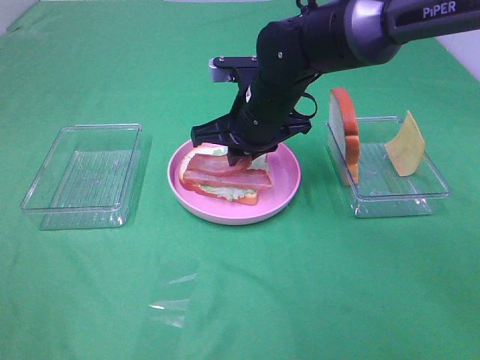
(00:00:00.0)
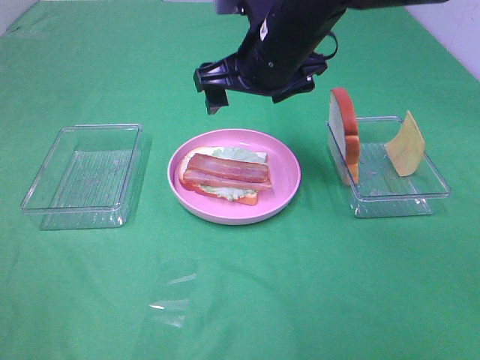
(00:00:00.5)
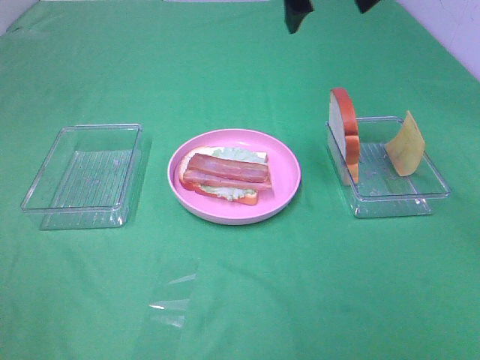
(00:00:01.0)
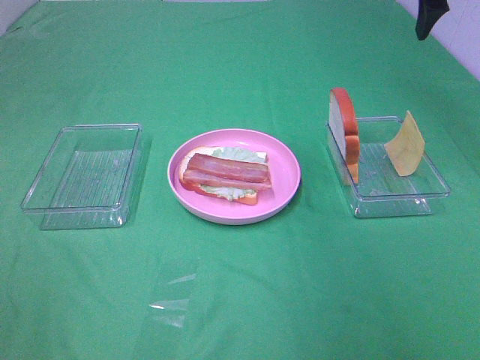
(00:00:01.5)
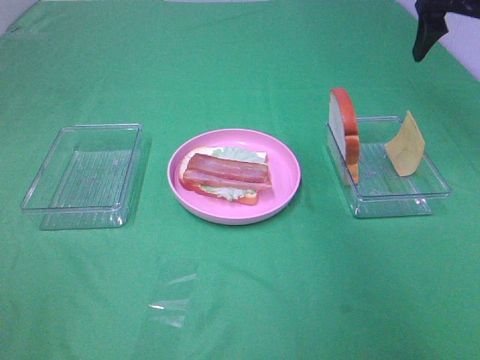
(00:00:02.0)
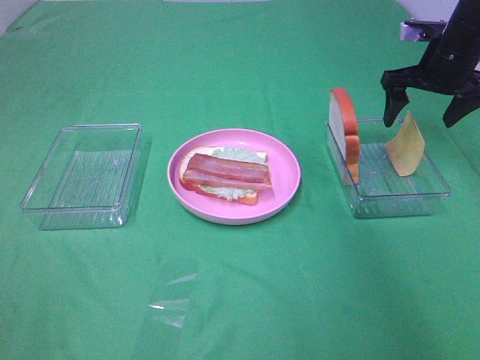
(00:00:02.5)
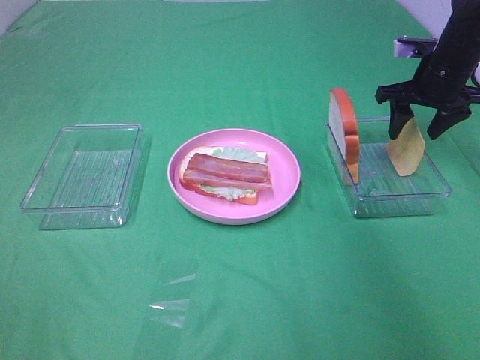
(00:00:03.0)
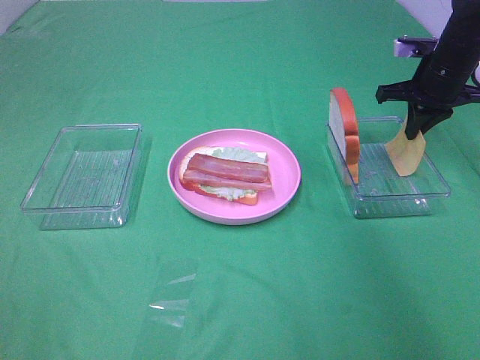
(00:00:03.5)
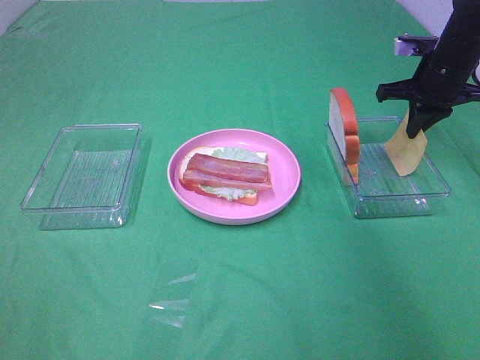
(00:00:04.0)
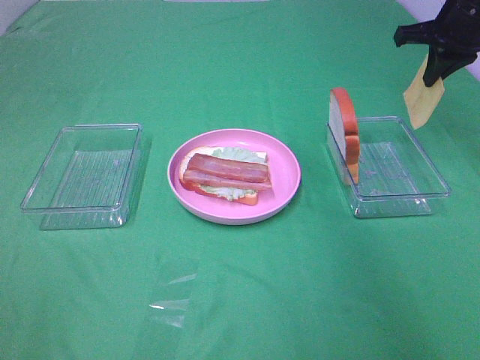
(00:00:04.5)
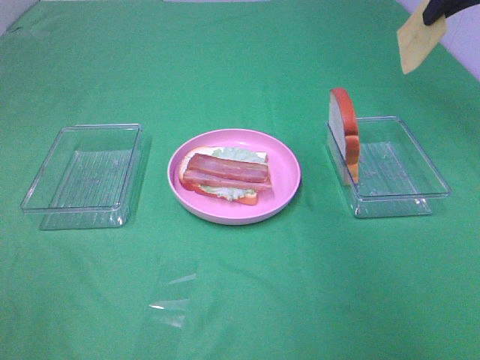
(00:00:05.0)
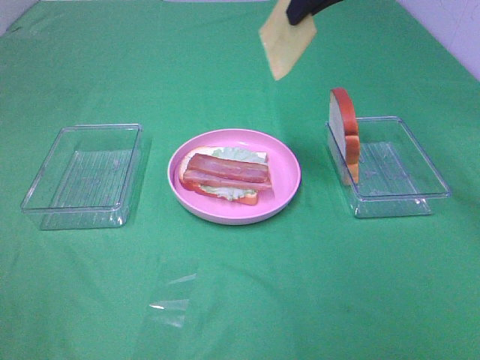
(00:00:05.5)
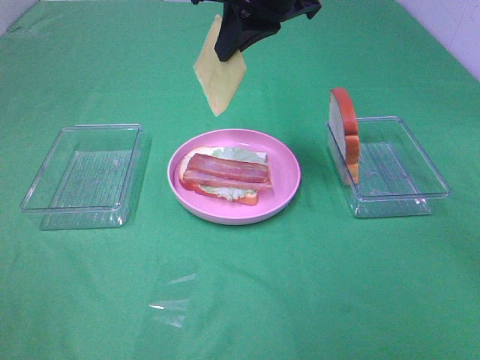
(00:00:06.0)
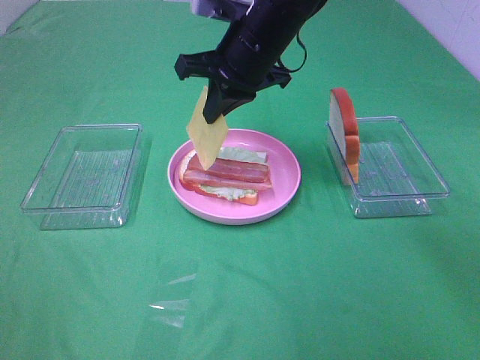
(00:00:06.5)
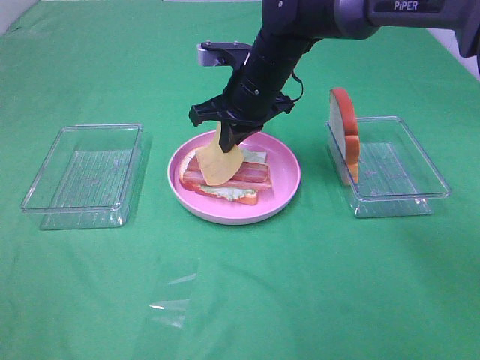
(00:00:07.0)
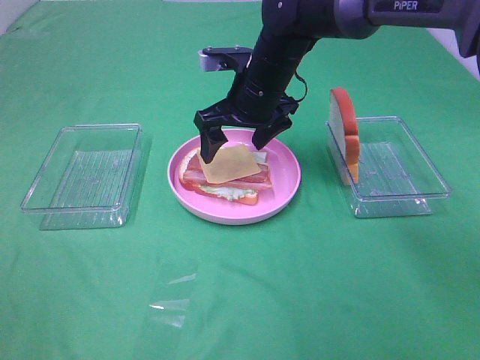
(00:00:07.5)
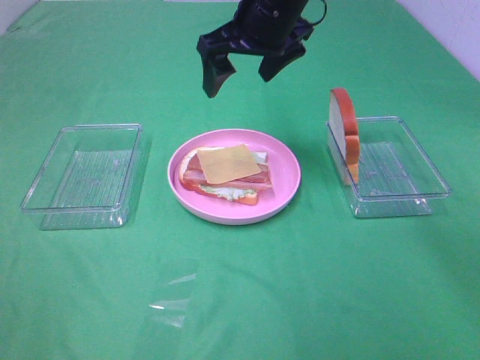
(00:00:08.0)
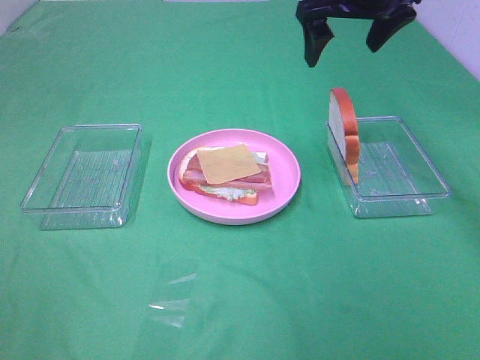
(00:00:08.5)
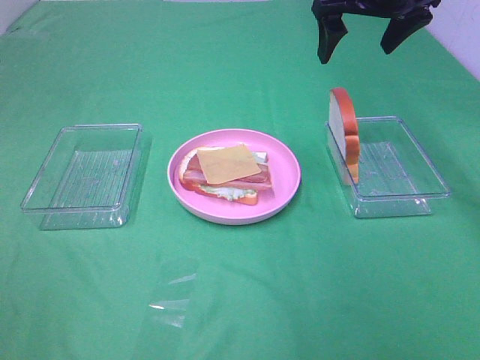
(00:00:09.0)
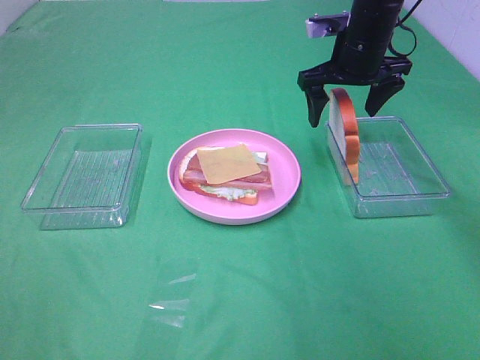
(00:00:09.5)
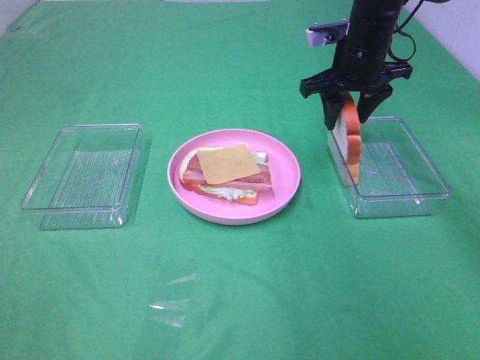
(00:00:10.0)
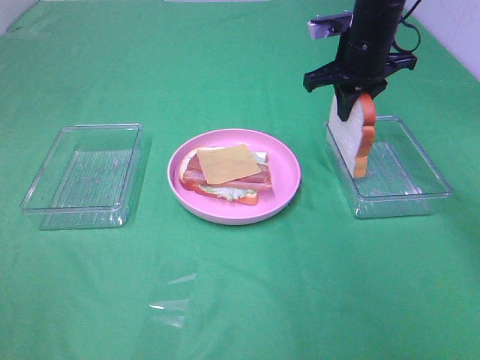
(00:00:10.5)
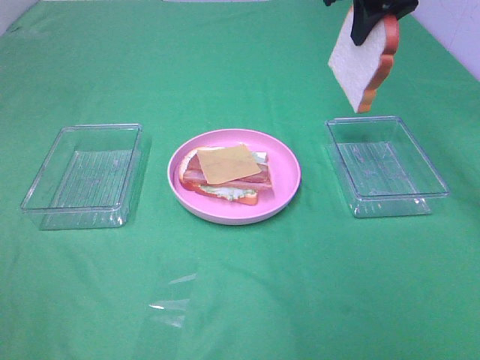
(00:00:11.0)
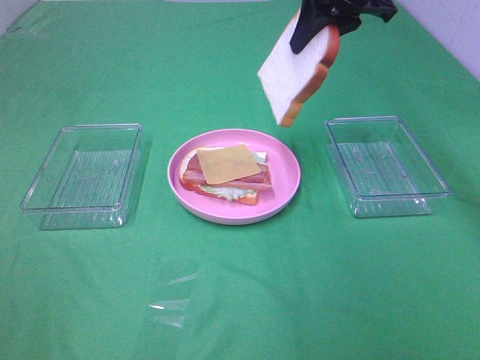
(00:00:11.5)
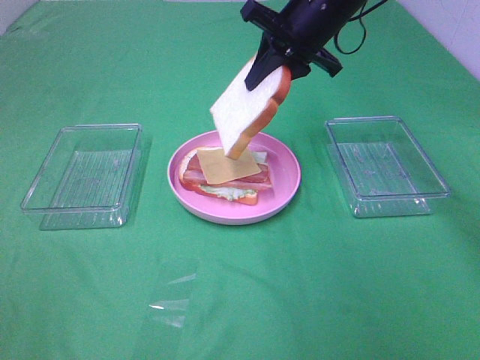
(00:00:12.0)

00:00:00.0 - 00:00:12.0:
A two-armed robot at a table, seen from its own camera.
Task of the whole recording: Make sandwiches.
Step, 00:00:00.5 - 00:00:04.0: Right hand:grab the cheese slice.
Step, 00:00:04.5 - 00:00:07.5: Right hand:place the cheese slice on top of the bacon.
Step, 00:00:08.0 - 00:00:10.0: Right hand:grab the bread slice.
00:00:00.0 - 00:00:02.0: The right gripper moves to the right and upward, approximately 30 cm, and opens.
00:00:02.0 - 00:00:04.0: The right gripper shifts roughly 10 cm downward, and closes its fingers.
00:00:04.0 - 00:00:06.0: The right gripper goes approximately 30 cm to the left and upward.
00:00:06.0 - 00:00:08.0: The right gripper reaches some 15 cm downward, then returns, and opens its fingers.
00:00:08.0 - 00:00:10.0: The right gripper moves to the right, downward and forward, about 15 cm, and closes its fingers.
00:00:10.0 - 00:00:12.0: The right gripper moves to the left and upward, roughly 10 cm.

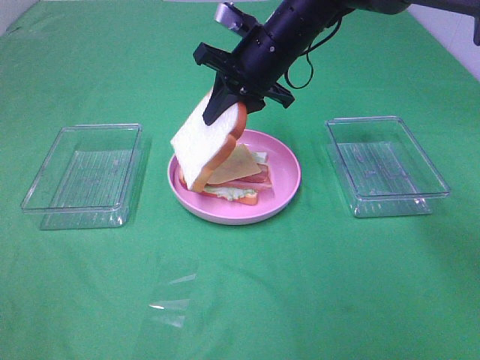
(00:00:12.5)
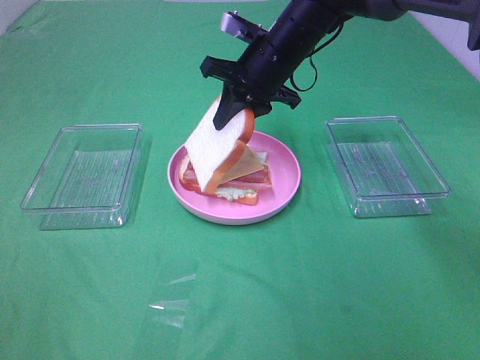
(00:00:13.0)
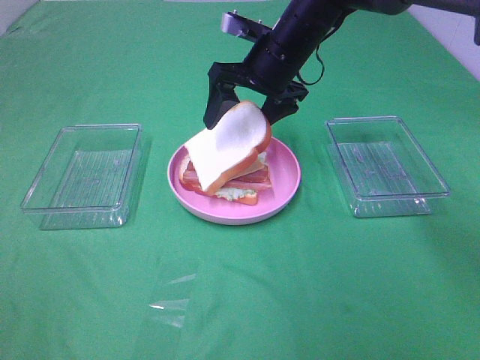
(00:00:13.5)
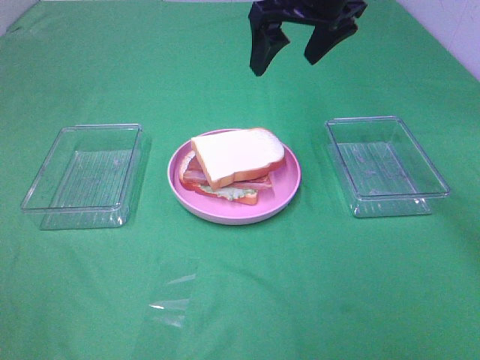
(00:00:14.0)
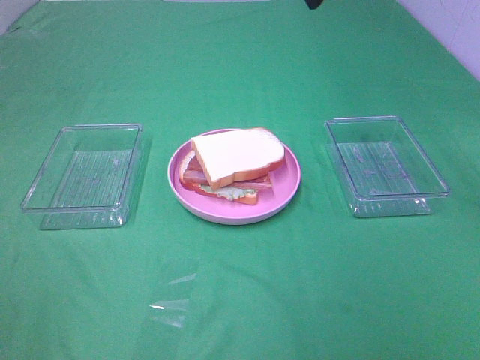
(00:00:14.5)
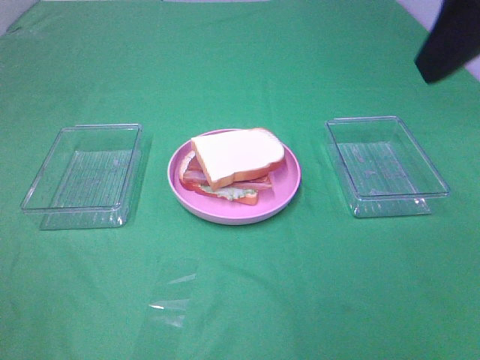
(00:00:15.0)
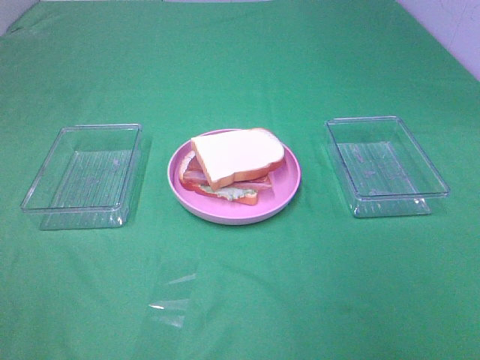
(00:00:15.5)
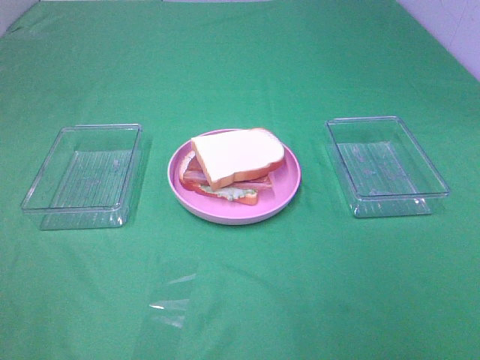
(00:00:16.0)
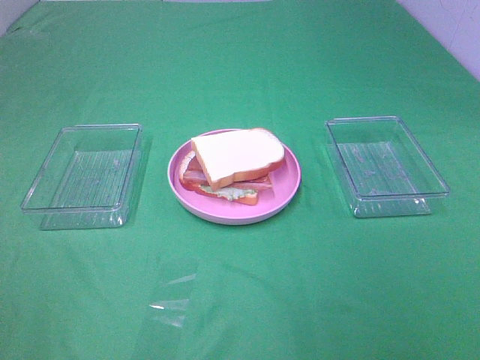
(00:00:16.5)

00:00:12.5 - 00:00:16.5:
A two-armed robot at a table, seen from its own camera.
Task of the whole recording: Make sandwiches.
00:00:12.5 - 00:00:14.5: The right gripper shifts about 25 cm upward, backward and to the right, and opens up.
